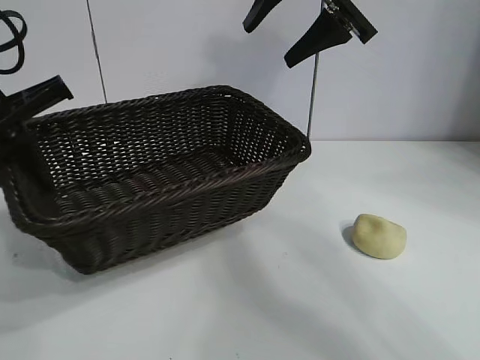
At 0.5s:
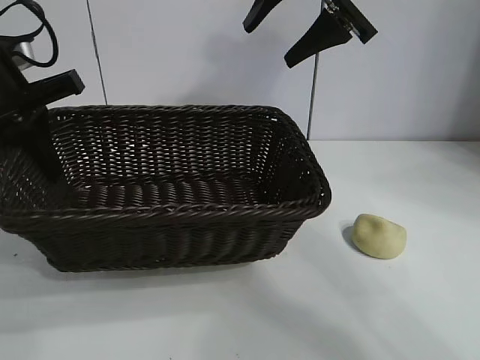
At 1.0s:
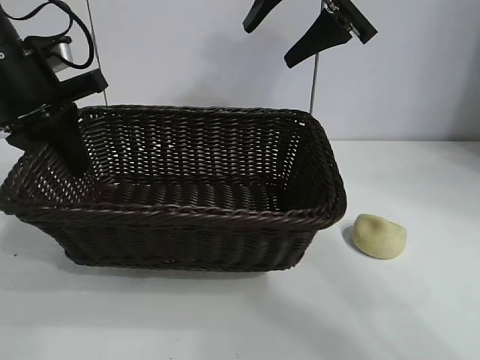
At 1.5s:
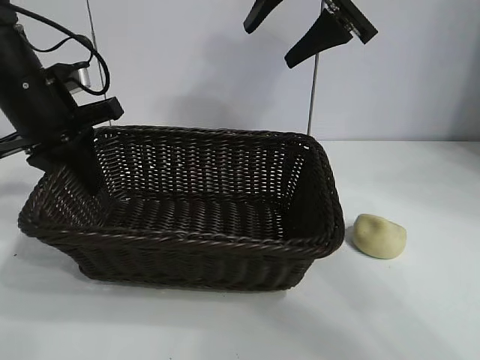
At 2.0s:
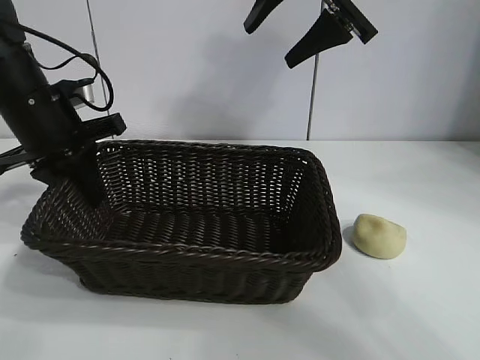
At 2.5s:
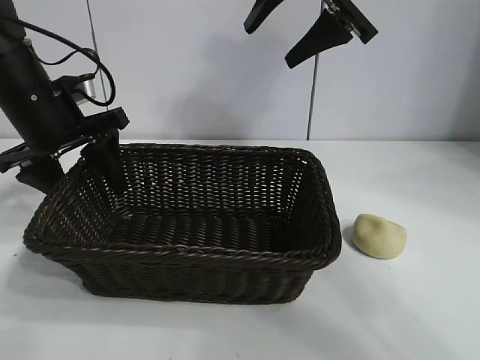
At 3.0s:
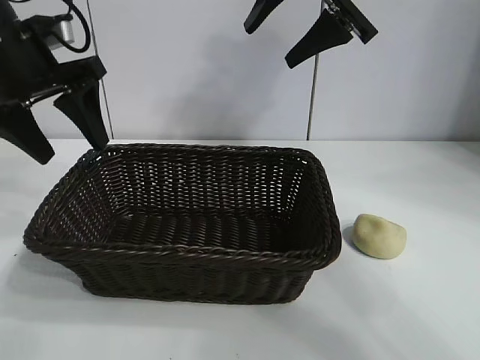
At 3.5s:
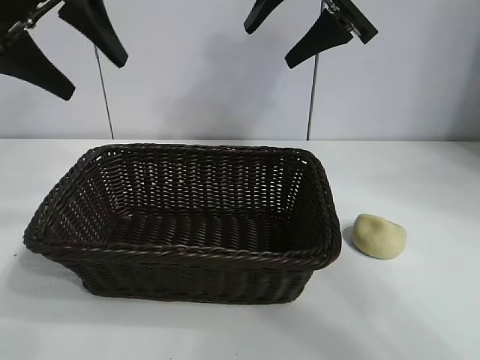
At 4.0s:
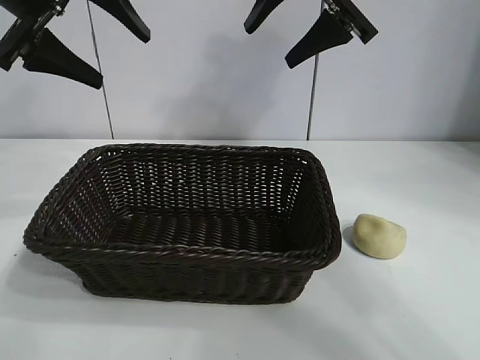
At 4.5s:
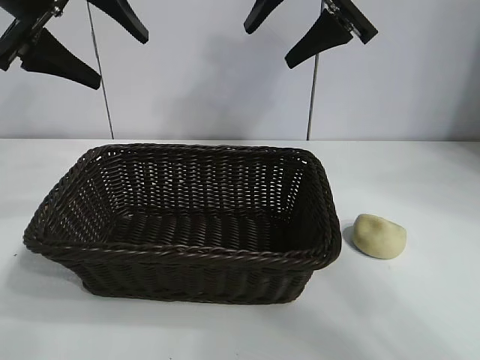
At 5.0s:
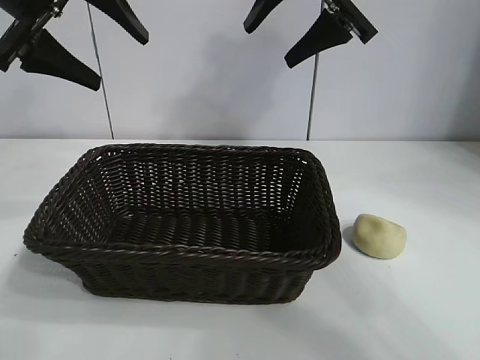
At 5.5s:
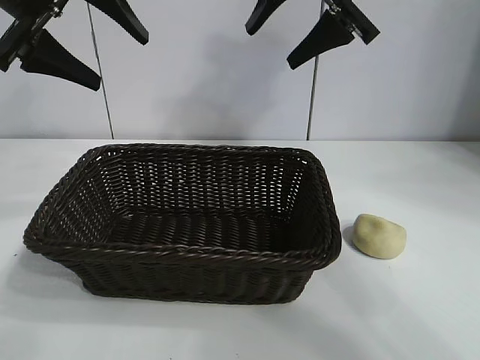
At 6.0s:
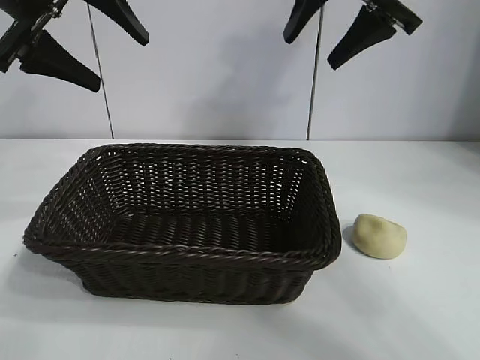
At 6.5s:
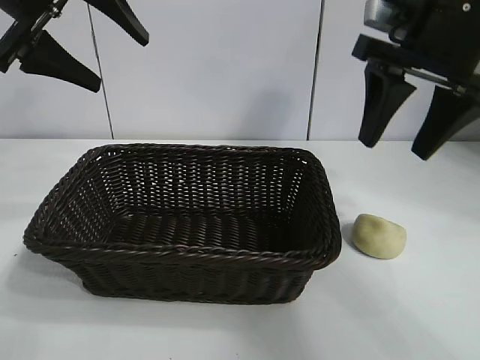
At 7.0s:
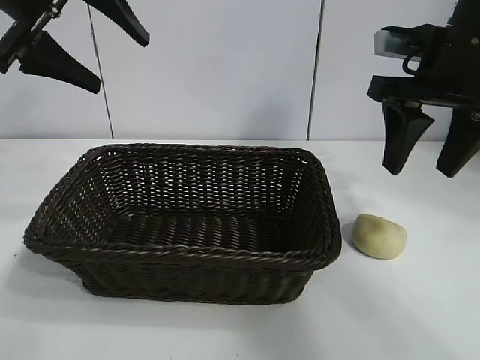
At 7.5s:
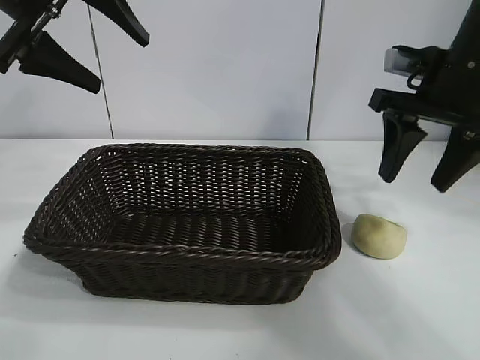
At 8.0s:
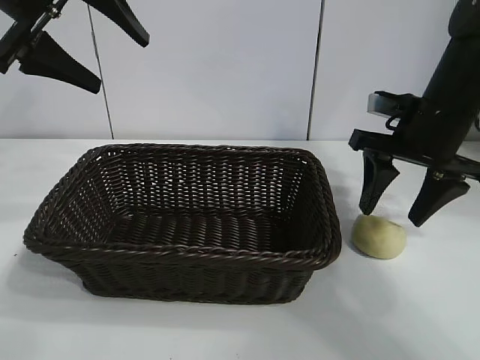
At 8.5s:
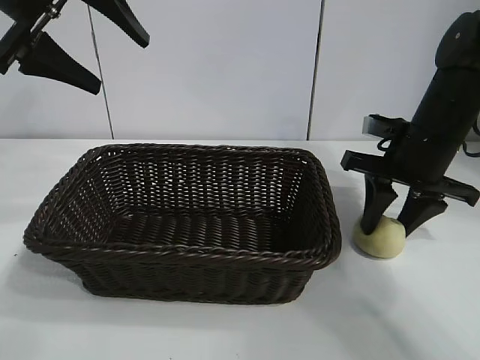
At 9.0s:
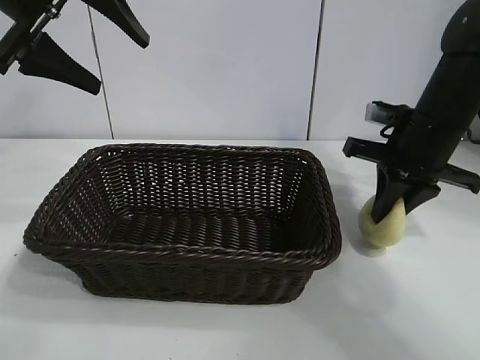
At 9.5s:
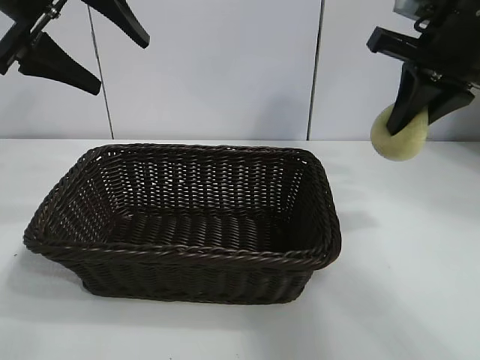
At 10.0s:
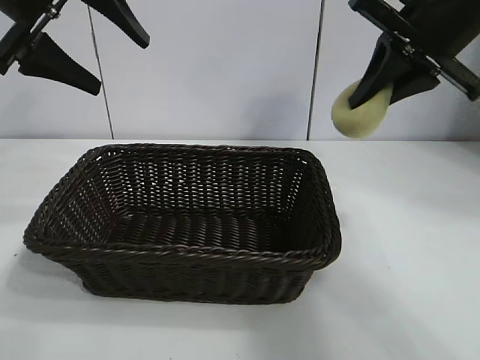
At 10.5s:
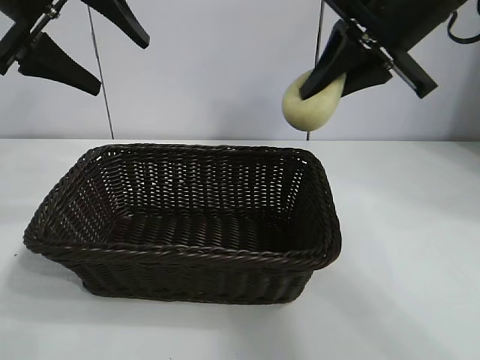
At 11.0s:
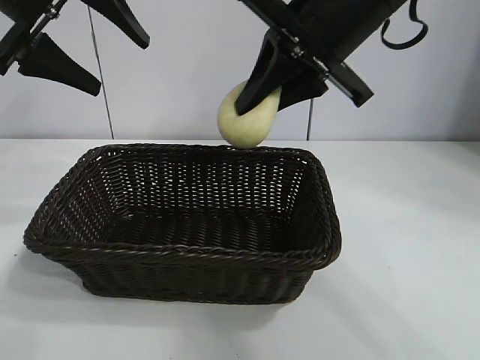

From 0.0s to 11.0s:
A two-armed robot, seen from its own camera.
Task of the whole recording: pick up the egg yolk pastry and put it into the basket.
Step, from 0.0s to 2.5s: Place the basket in the center of view with left gripper.
Step, from 3.0s to 8.5s: Grasp egg yolk pastry with right gripper.
